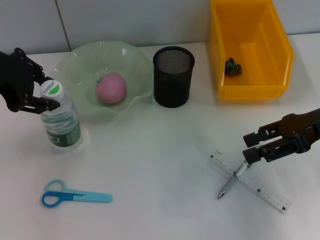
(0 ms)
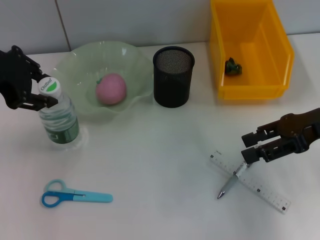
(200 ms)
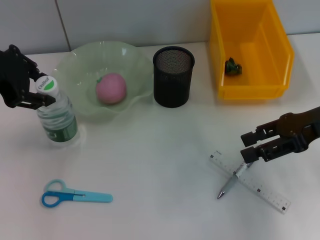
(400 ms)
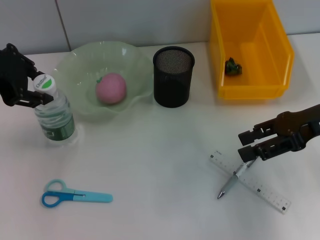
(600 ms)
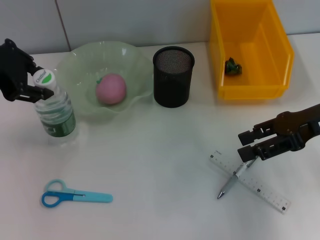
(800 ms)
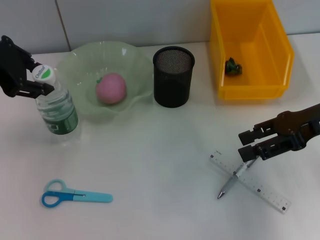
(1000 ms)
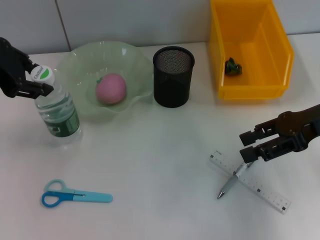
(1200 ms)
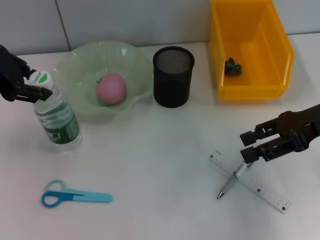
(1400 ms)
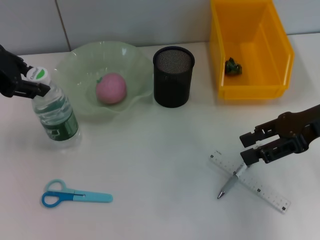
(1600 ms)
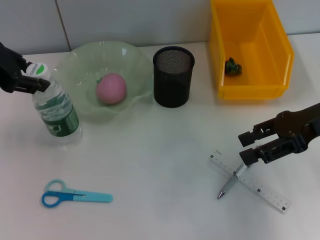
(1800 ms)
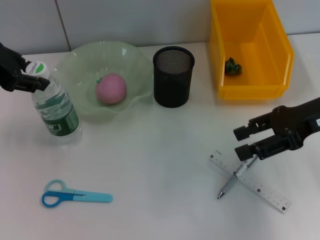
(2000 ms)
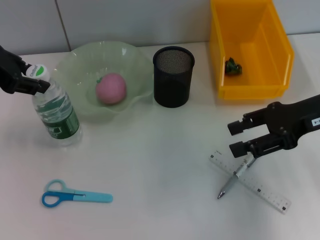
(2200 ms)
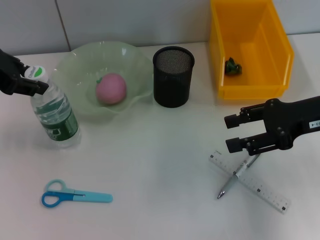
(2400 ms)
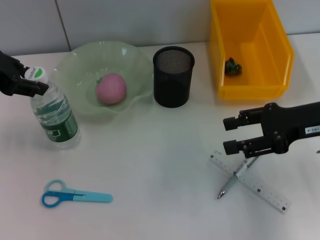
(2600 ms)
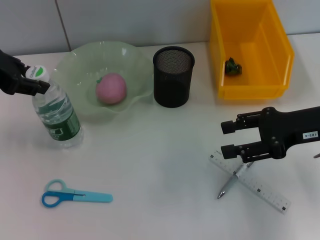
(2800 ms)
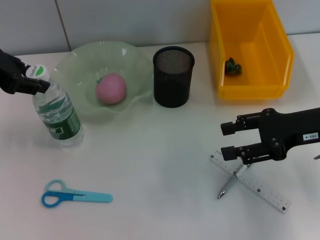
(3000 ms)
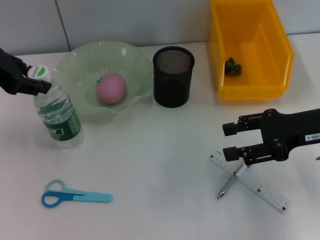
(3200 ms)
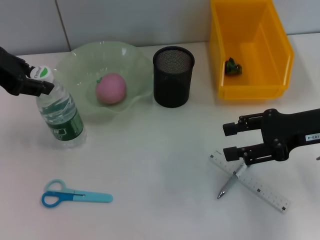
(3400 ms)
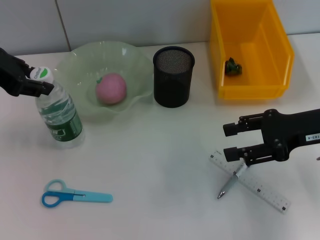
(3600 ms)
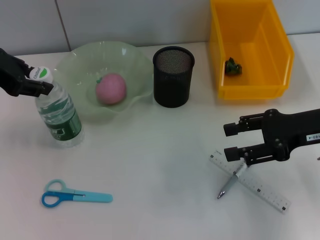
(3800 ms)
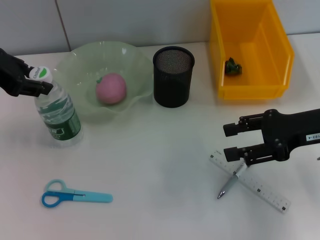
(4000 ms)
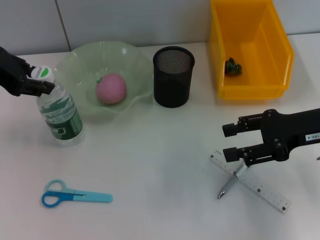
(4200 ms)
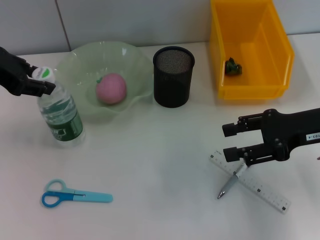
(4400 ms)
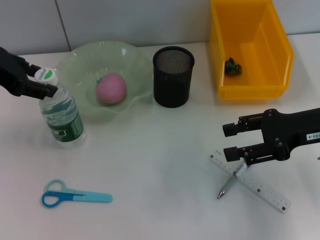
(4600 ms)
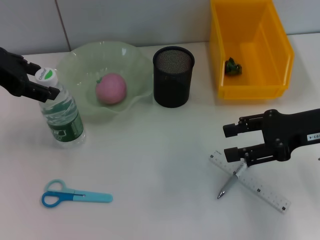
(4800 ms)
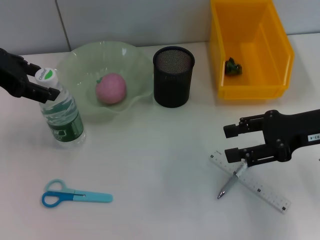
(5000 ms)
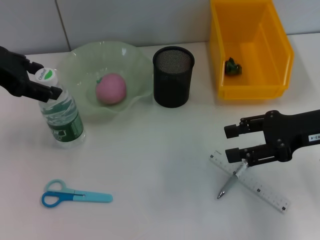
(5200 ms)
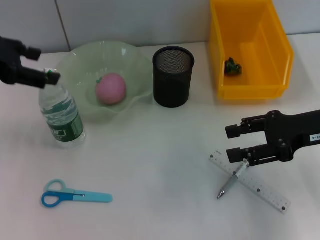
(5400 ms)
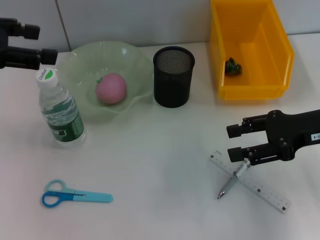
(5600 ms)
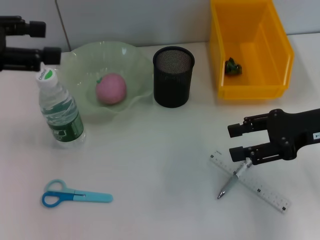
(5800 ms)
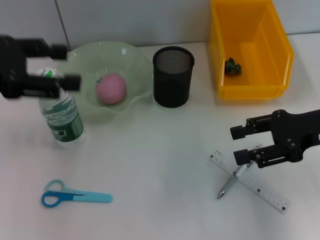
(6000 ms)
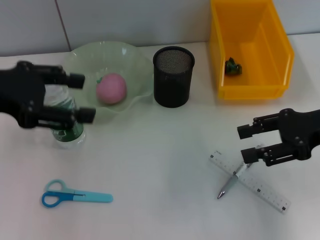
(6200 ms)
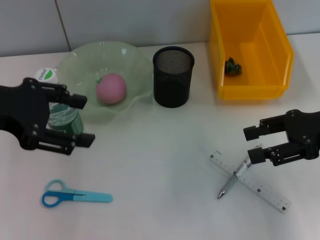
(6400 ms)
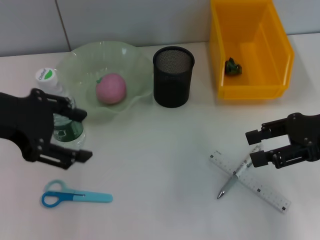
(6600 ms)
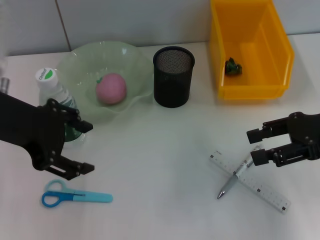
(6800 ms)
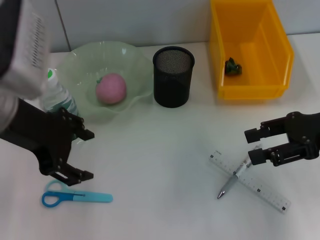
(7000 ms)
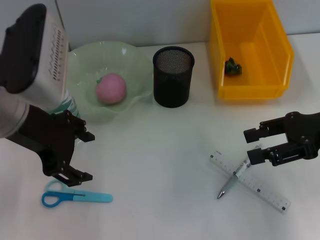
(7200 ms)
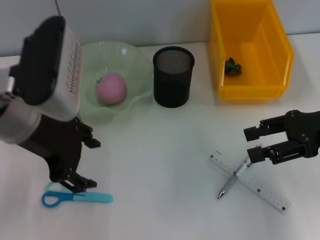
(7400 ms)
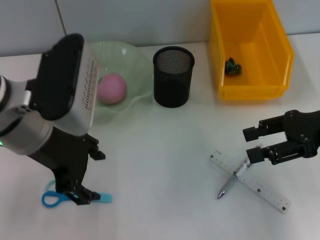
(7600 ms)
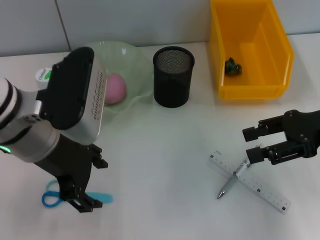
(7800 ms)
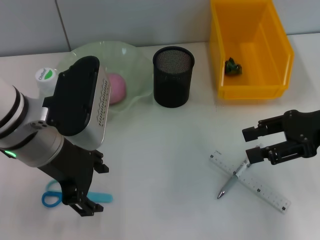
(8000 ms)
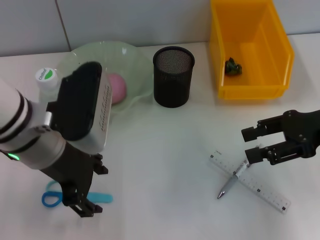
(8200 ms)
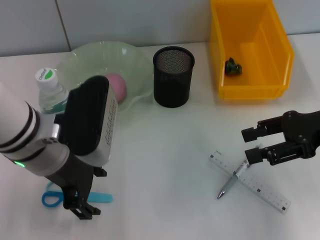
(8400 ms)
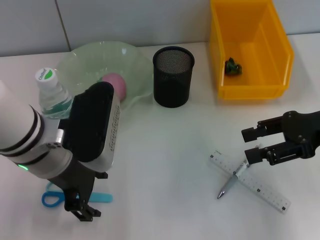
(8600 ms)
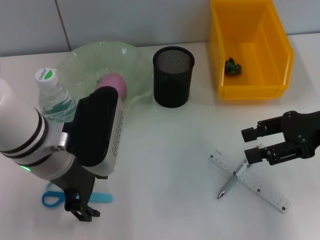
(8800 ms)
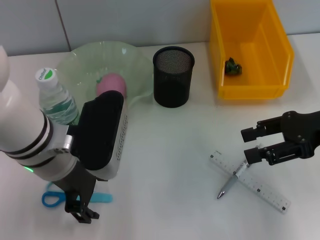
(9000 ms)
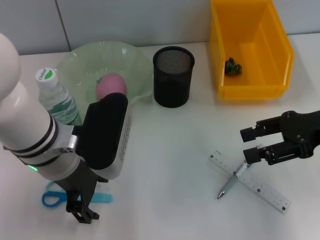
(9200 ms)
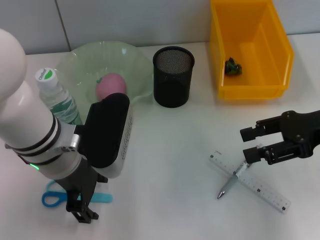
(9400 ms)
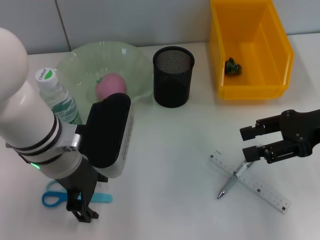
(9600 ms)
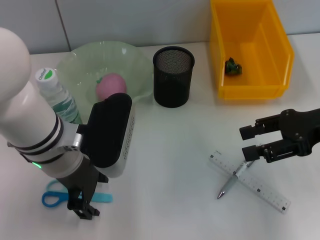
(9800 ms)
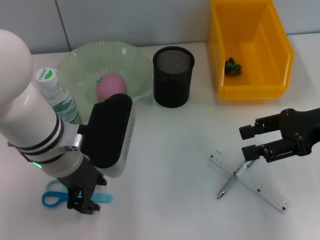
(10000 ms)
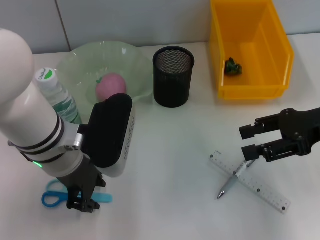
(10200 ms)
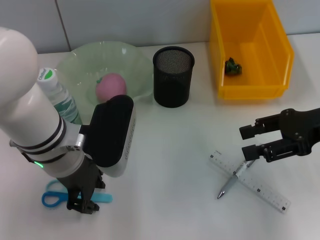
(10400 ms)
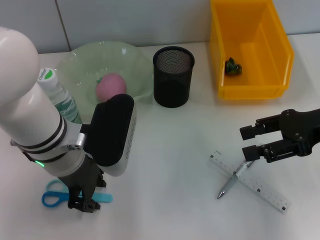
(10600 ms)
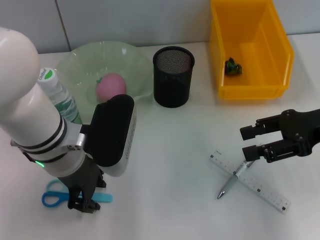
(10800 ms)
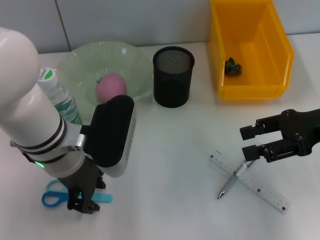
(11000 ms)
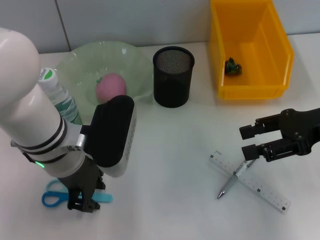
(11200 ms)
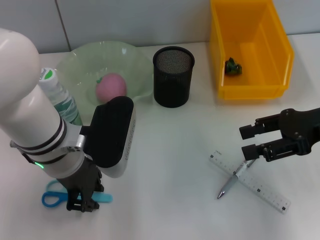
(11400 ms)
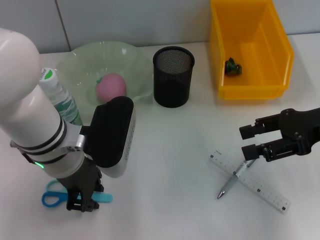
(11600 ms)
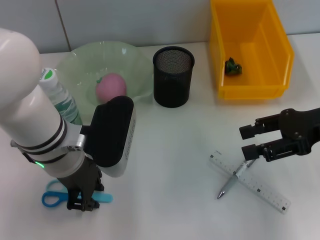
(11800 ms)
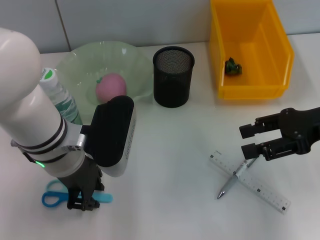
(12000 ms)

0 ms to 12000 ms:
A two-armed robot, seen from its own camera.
Step, 0 ms to 5000 ms: Place the water bottle on the table with the left hand.
1600 ms to 3000 ms: The grippers move only a little.
3000 ms to 4400 ms: Both grippers stay about where they are.
4400 ms to 6000 ms: The left gripper travels backward by about 5 cm, and opens its fingers.
6000 ms to 7600 ms: The left gripper heads to the right, covering some 10 cm.
7600 ms to 9000 ms: The left gripper shifts approximately 5 cm downward.
9000 ms to 10400 ms: The left gripper closes.
10400 ms to 12000 ms: Both grippers stay about where they are.

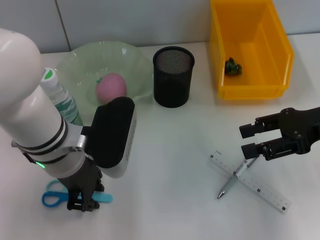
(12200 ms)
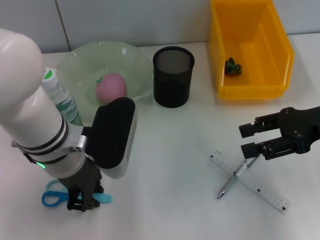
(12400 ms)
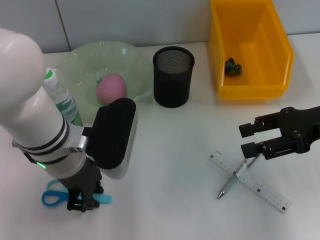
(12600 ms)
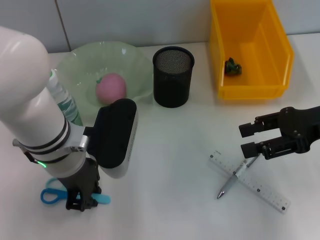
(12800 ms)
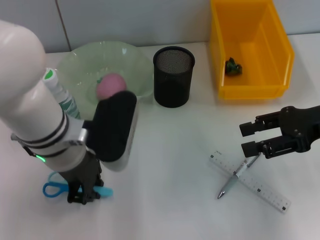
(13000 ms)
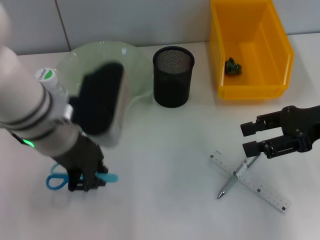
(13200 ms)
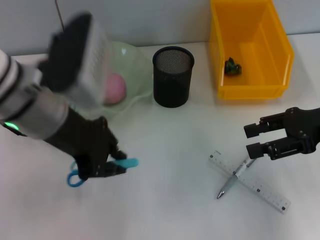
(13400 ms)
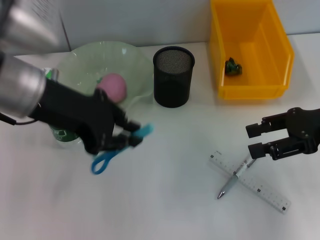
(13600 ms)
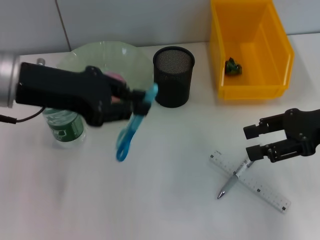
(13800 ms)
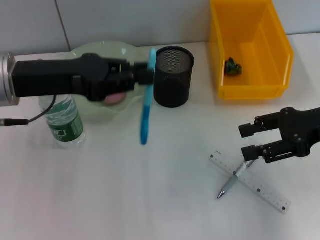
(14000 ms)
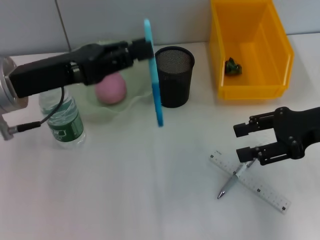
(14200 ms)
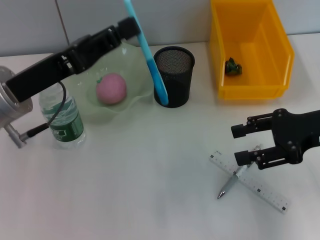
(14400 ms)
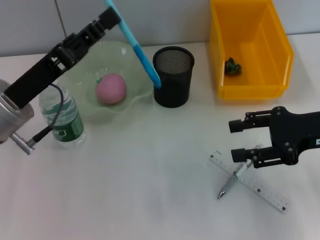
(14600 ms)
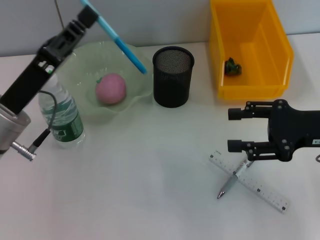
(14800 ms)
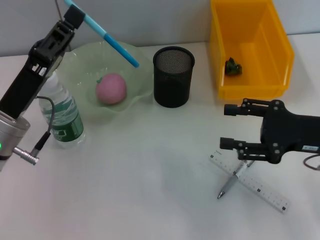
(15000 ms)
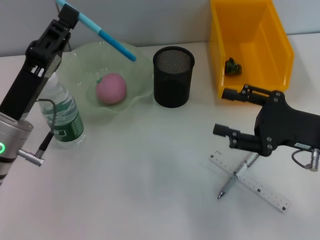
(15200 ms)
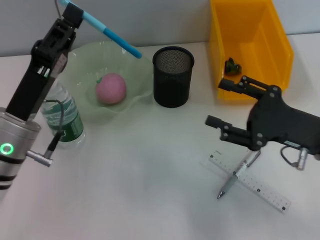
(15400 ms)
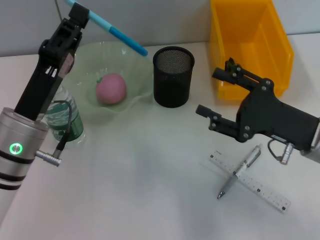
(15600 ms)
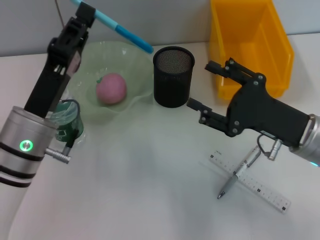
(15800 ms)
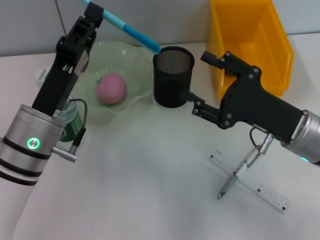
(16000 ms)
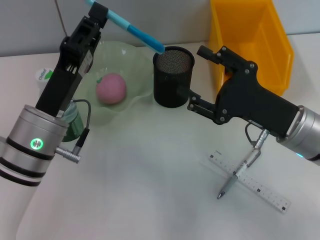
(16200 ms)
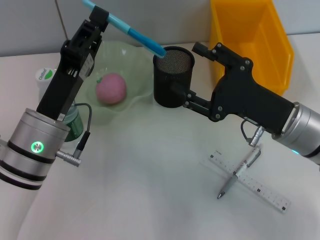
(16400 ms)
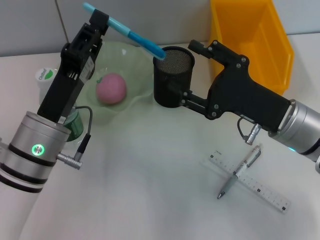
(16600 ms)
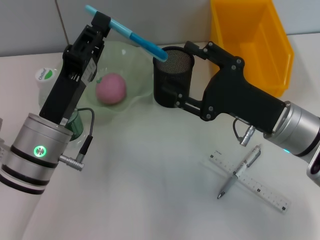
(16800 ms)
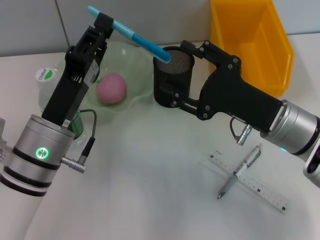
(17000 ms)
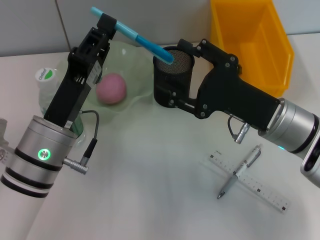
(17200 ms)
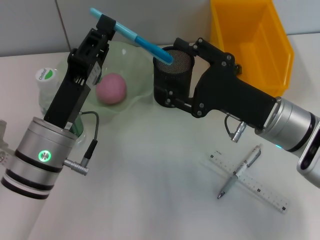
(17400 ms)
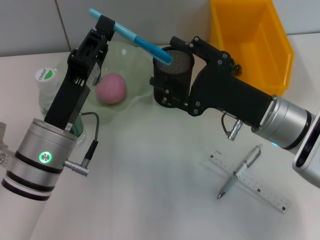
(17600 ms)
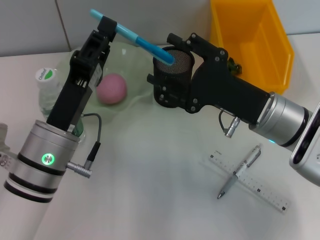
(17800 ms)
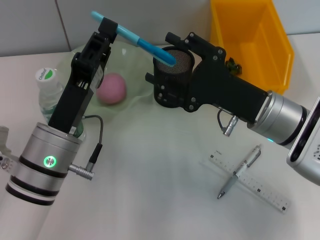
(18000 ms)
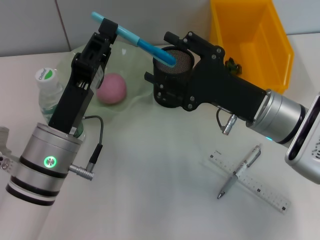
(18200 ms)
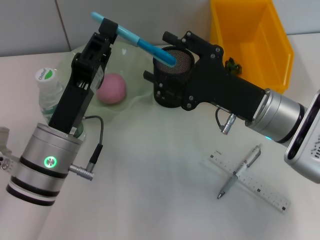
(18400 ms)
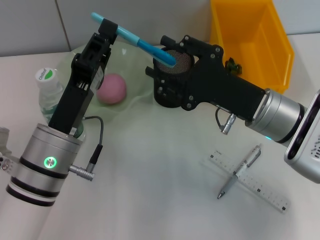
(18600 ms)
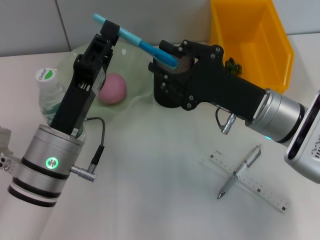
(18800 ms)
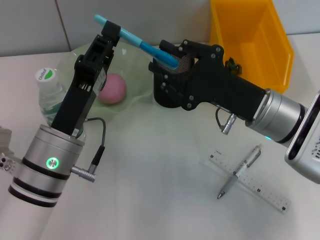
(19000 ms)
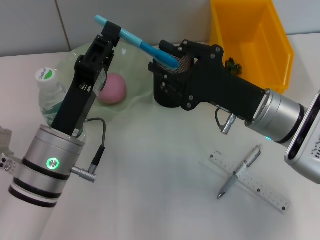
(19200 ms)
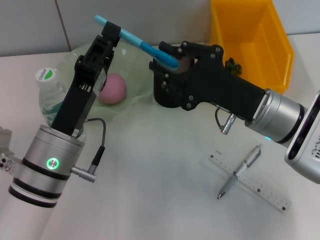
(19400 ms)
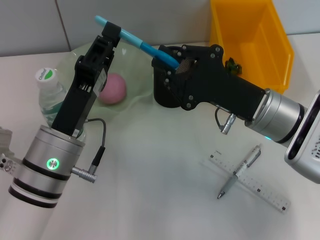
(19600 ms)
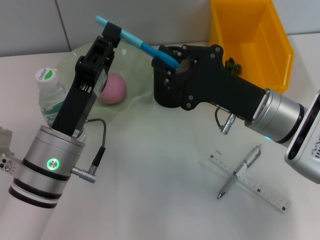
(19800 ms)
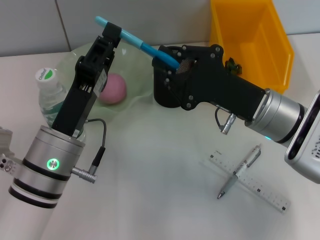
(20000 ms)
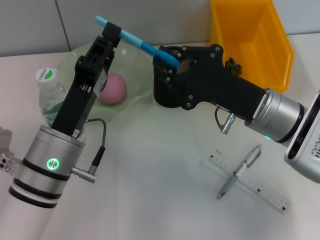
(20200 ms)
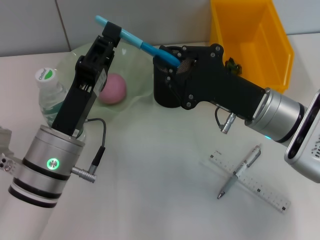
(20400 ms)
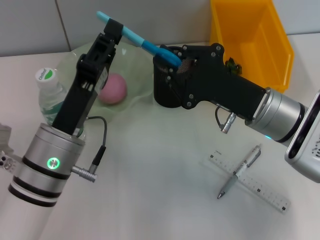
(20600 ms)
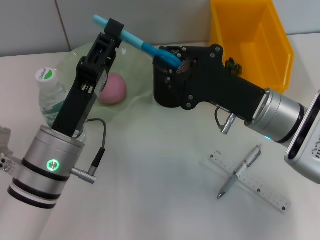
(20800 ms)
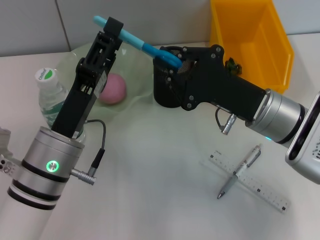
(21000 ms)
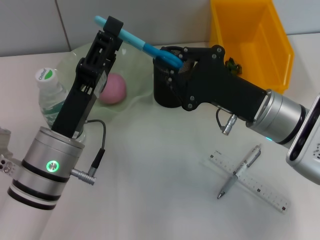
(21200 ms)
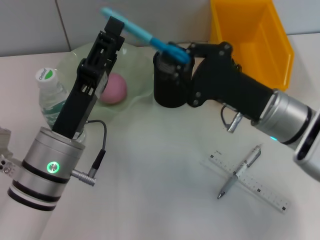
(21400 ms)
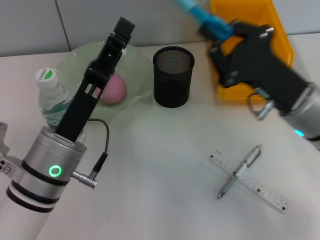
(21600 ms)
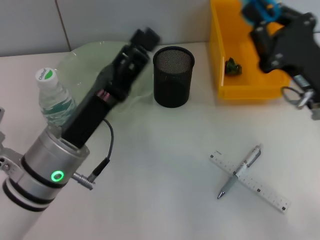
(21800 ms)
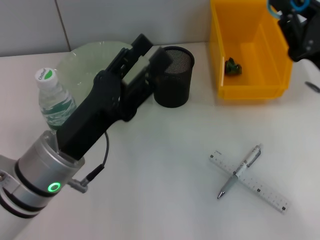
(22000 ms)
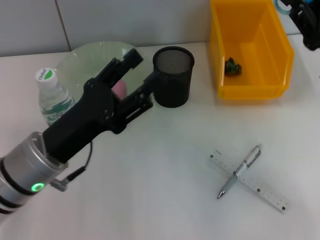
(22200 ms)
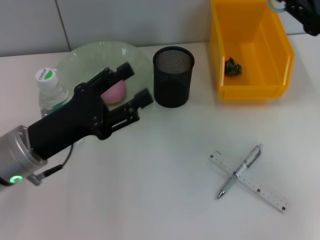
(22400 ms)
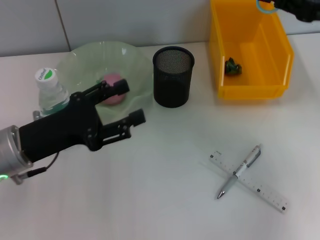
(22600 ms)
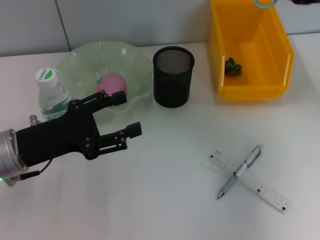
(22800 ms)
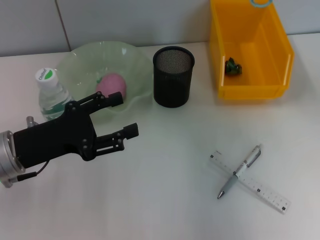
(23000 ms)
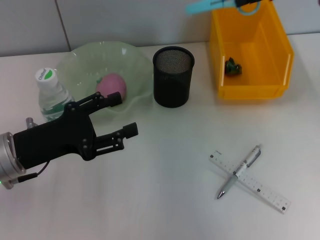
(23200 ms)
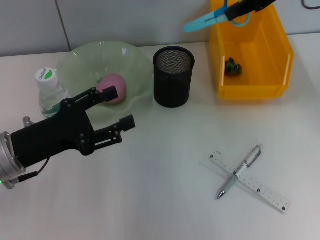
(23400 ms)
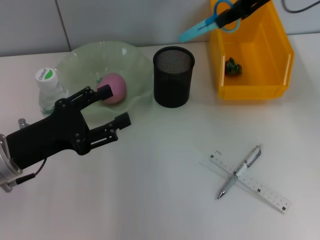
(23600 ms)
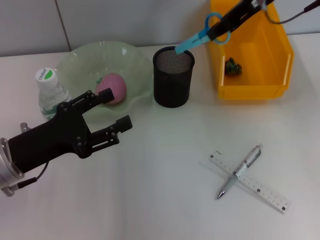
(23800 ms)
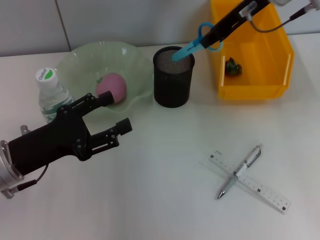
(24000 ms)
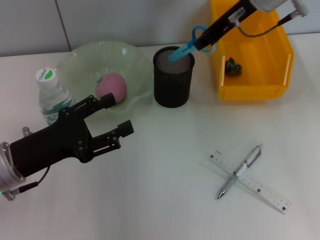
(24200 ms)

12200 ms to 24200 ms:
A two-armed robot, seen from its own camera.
Step, 12800 ms to 21200 ms: Pass the blue scissors from the left hand to the right hand.
12200 ms to 13800 ms: The left gripper goes approximately 10 cm upward and to the left.
13800 ms to 15200 ms: The right gripper travels downward by some 5 cm. Meanwhile the left gripper goes approximately 15 cm downward.
15200 ms to 16600 ms: The right gripper shifts approximately 5 cm to the left. The left gripper moves to the right, about 5 cm.
18200 ms to 19800 ms: The right gripper closes its fingers.
19800 ms to 21200 ms: The left gripper opens.
21200 ms to 22600 ms: The right gripper is displaced to the right and upward by about 20 cm. Meanwhile the left gripper travels to the left by roughly 10 cm.
22600 ms to 24200 ms: The right gripper moves to the left and forward, about 20 cm.
